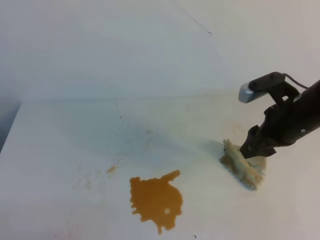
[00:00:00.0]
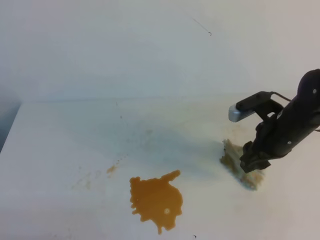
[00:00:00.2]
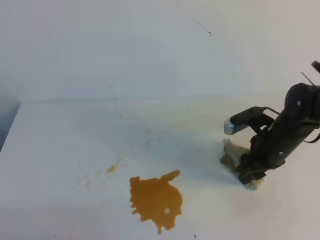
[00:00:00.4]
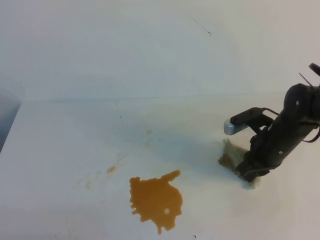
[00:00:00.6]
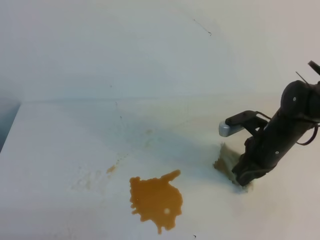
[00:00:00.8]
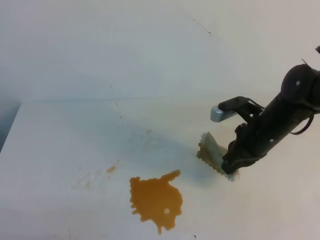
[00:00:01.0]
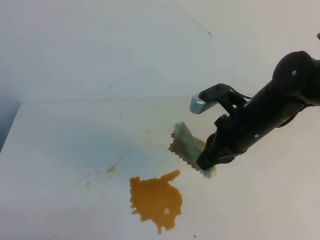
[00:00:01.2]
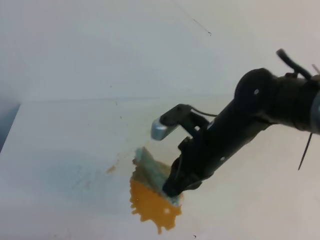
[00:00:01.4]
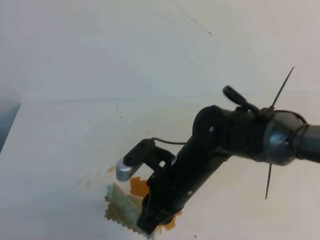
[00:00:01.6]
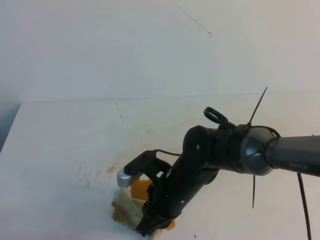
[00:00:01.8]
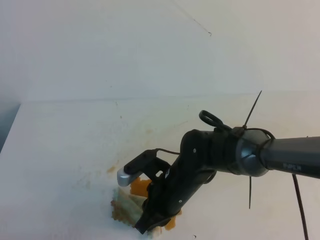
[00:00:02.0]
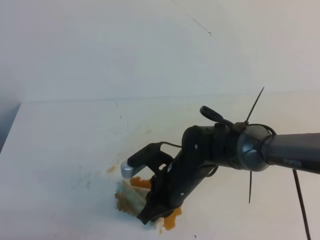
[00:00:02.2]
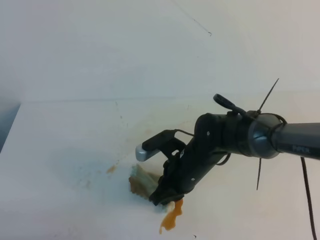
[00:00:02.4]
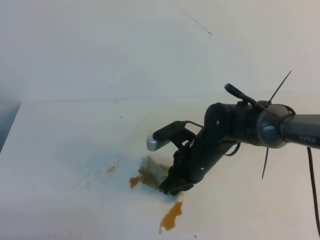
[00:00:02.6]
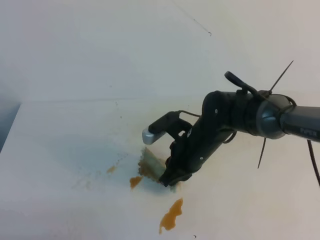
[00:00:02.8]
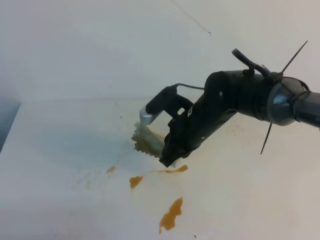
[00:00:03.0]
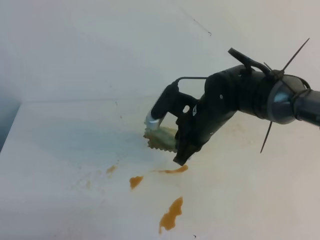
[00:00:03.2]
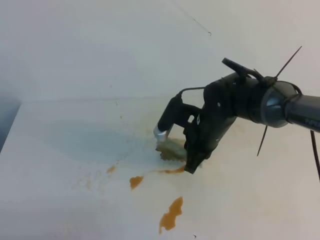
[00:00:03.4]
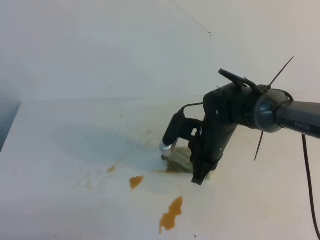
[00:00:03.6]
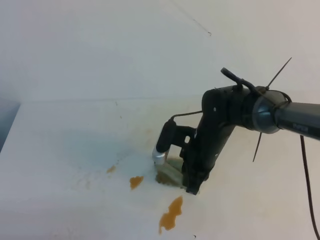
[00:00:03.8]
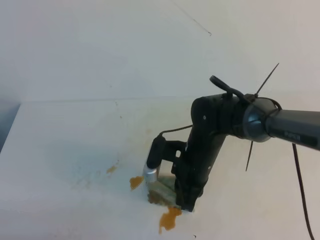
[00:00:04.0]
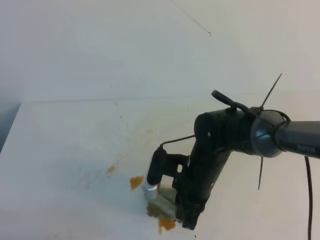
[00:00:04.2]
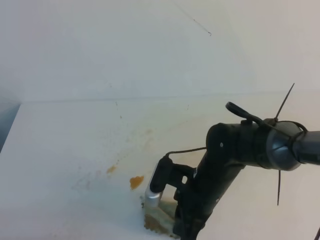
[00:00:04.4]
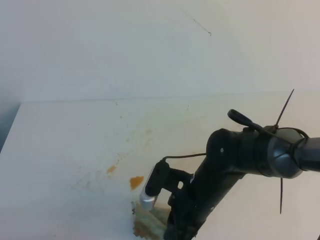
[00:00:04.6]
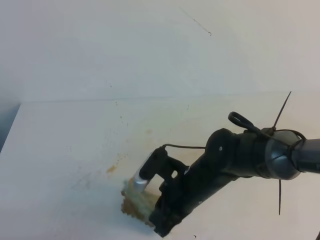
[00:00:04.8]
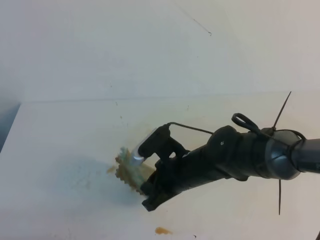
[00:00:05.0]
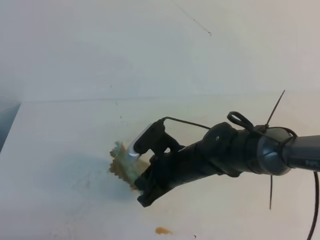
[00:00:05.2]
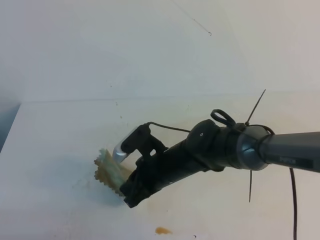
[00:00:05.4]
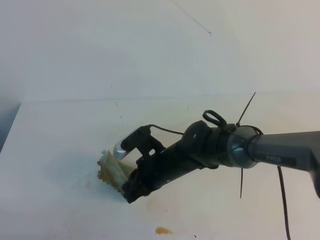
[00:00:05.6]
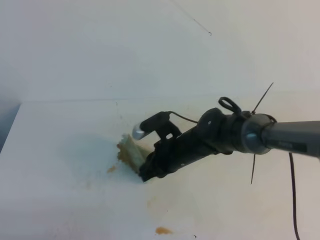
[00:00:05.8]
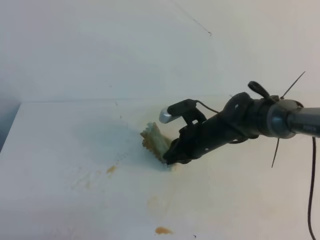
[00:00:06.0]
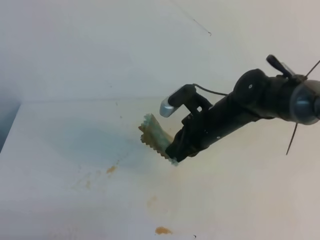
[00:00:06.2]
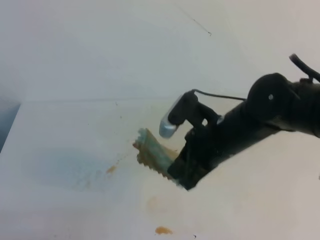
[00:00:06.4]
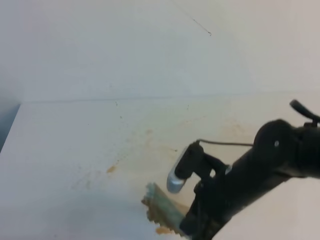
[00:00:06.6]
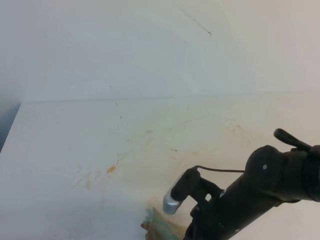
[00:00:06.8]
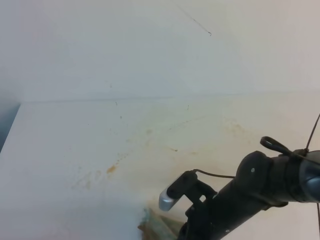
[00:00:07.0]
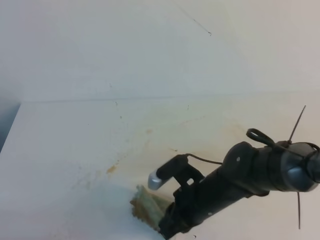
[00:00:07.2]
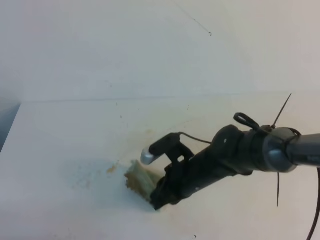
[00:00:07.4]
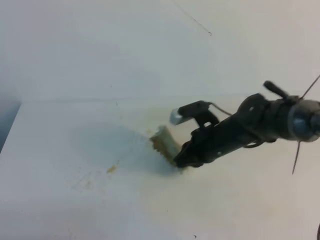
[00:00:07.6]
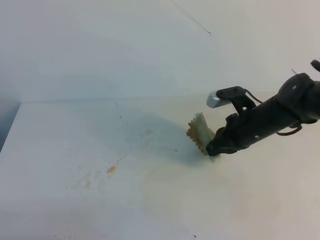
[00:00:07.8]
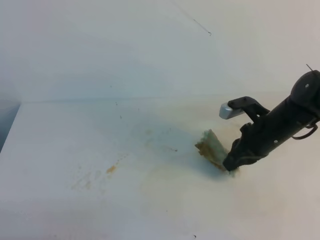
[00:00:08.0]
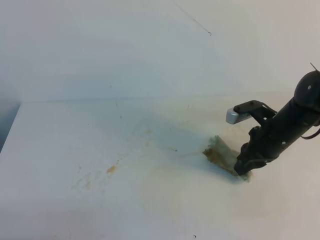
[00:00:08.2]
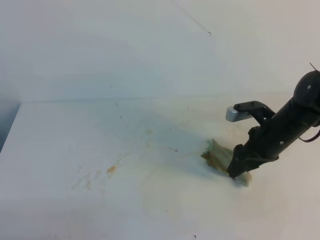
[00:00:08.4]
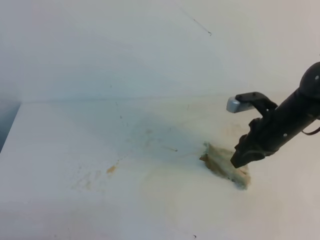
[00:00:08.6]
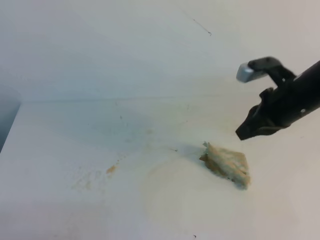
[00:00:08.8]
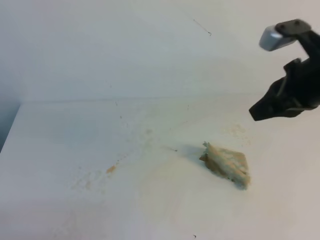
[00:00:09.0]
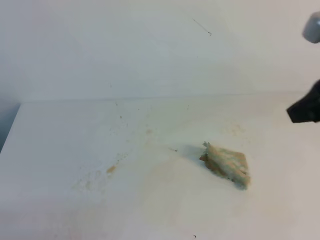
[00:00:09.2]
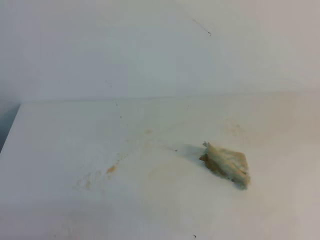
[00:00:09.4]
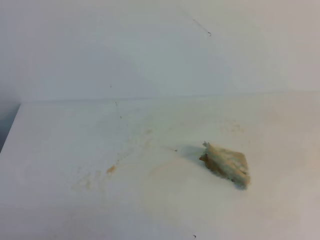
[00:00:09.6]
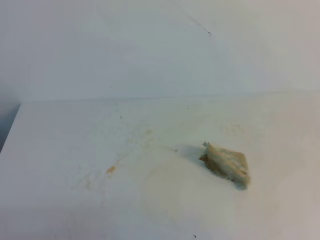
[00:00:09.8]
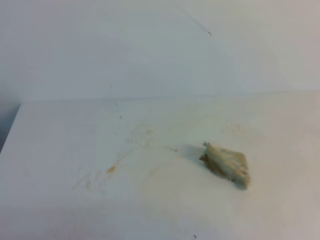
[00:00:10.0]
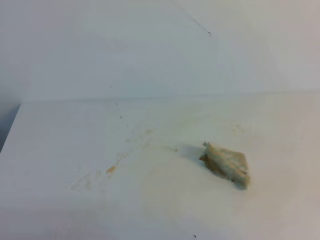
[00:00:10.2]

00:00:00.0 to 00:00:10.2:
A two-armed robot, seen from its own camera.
00:00:00.0 to 00:00:01.4: The right gripper goes about 15 cm to the left, and closes its fingers.
00:00:03.0 to 00:00:04.4: The right gripper shifts approximately 5 cm backward.
00:00:04.4 to 00:00:05.8: The right gripper travels forward by about 10 cm.
00:00:05.8 to 00:00:07.2: The right gripper goes some 10 cm backward.
00:00:07.2 to 00:00:08.8: The right gripper travels to the right, upward and forward by roughly 20 cm, and opens, then closes once more.
00:00:08.8 to 00:00:10.2: The right gripper is displaced backward by roughly 25 cm.
